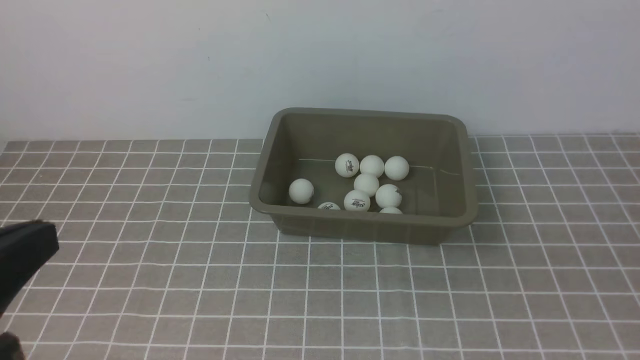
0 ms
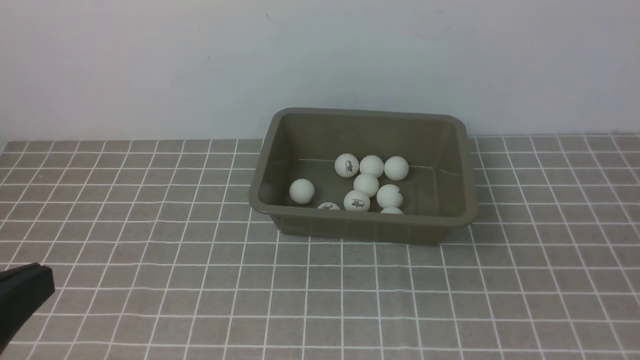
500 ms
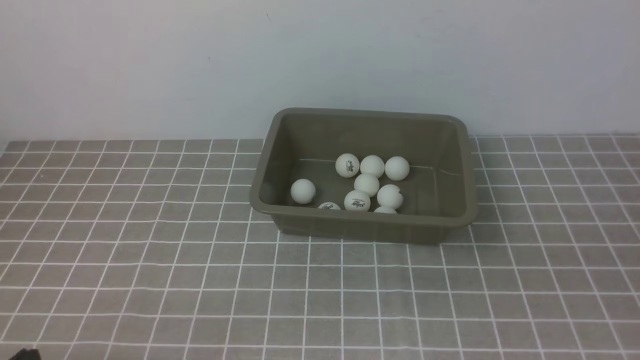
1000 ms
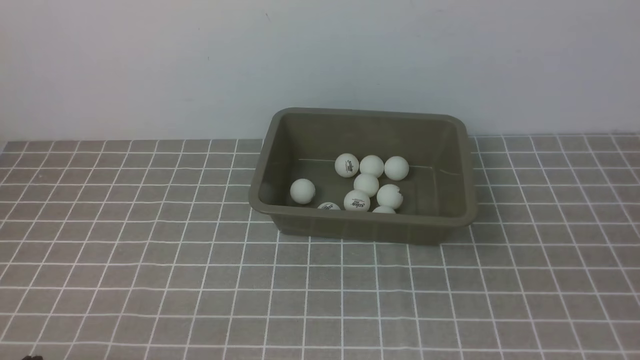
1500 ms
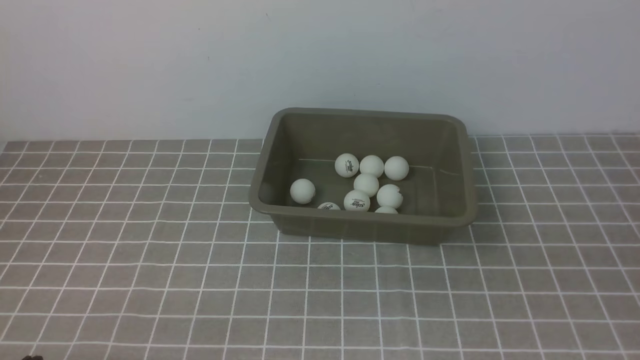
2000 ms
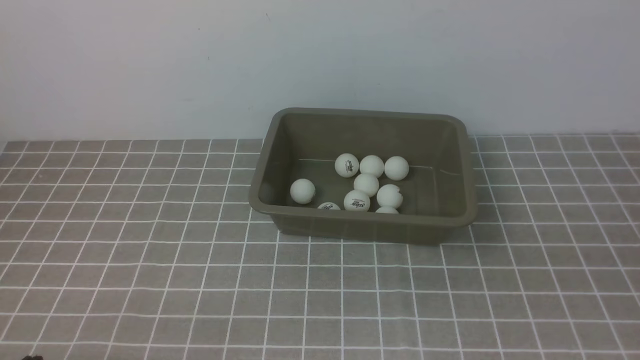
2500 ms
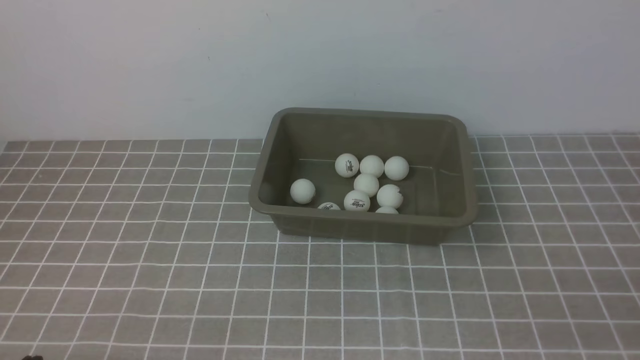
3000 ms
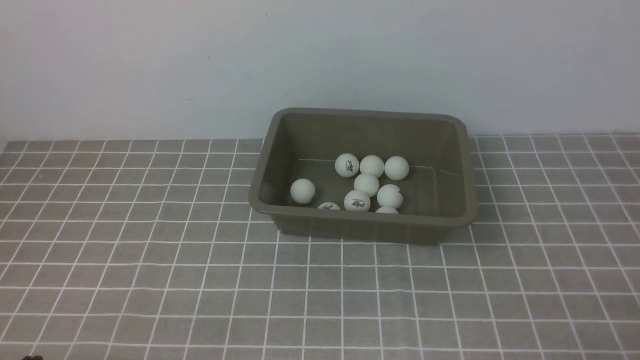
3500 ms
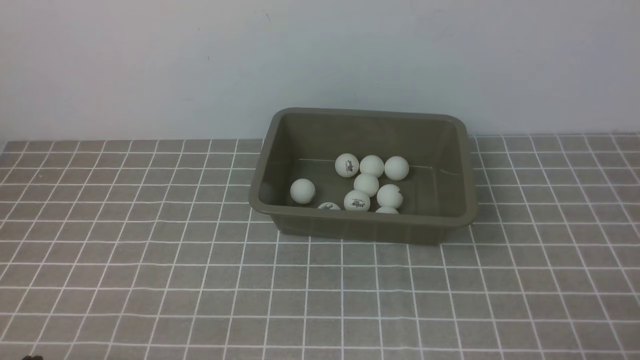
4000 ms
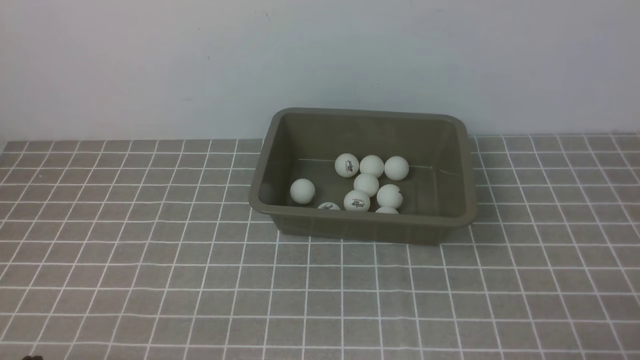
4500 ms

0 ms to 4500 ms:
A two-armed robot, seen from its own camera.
0 ms to 2000 ms: The left gripper shifts roughly 15 cm downward.
